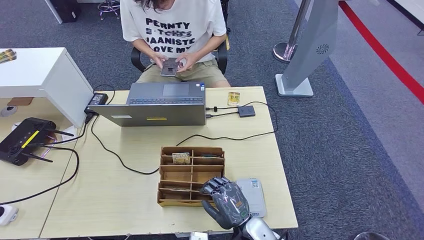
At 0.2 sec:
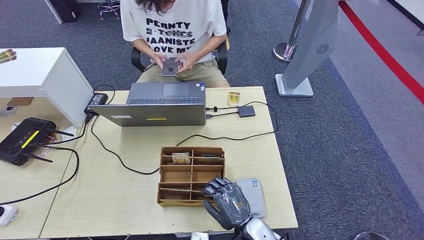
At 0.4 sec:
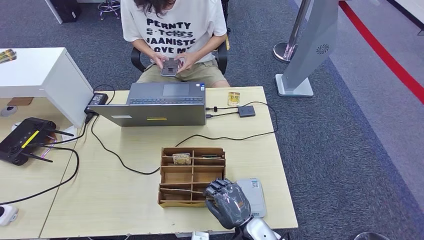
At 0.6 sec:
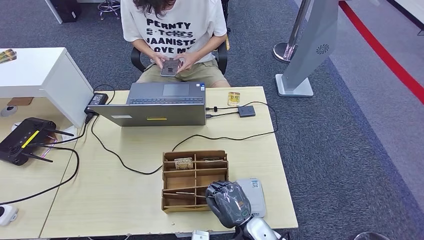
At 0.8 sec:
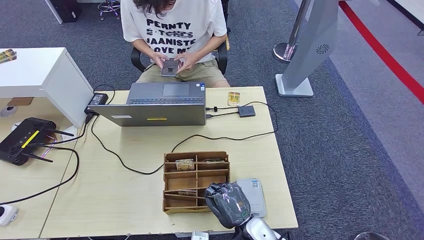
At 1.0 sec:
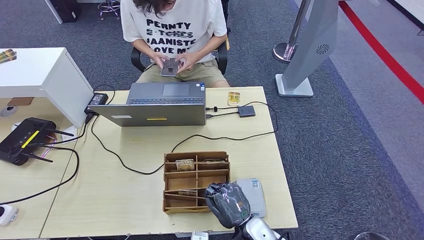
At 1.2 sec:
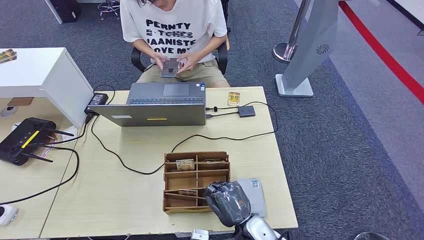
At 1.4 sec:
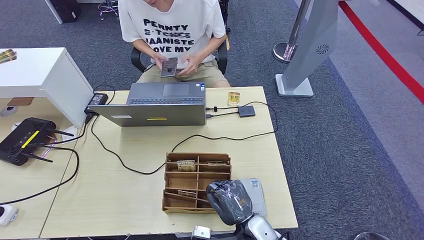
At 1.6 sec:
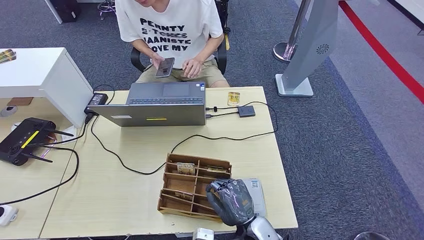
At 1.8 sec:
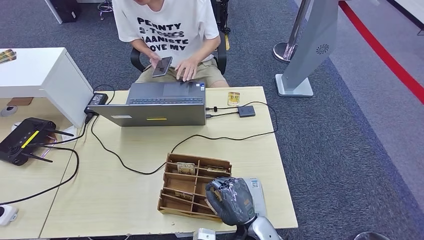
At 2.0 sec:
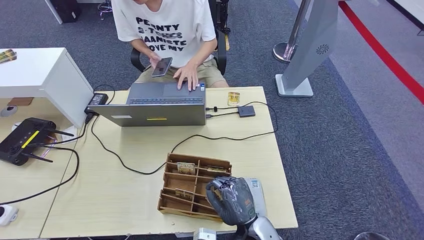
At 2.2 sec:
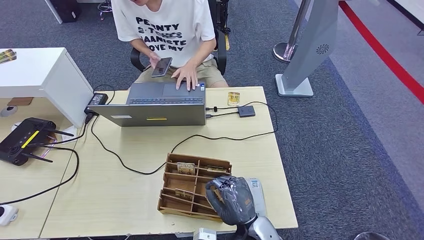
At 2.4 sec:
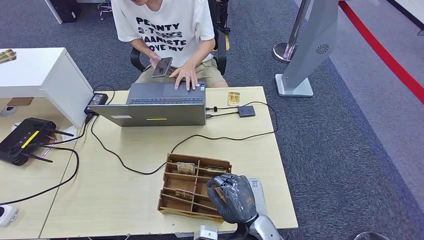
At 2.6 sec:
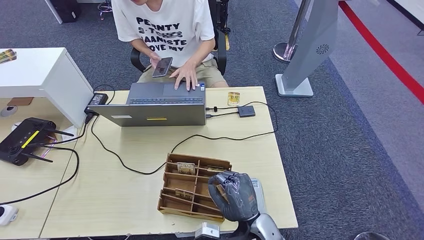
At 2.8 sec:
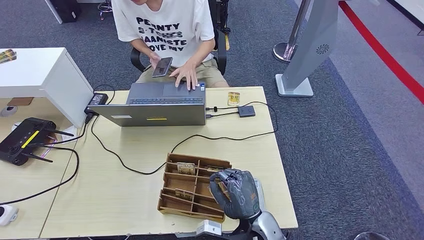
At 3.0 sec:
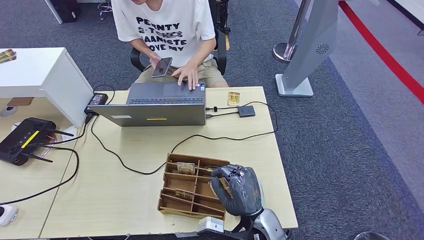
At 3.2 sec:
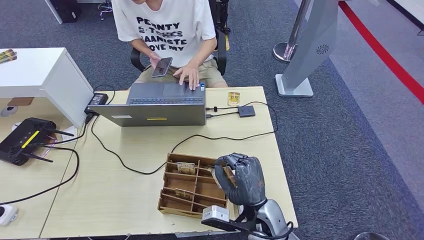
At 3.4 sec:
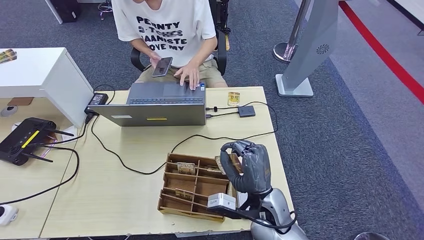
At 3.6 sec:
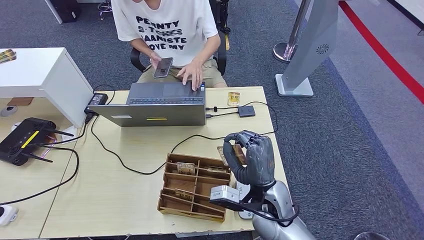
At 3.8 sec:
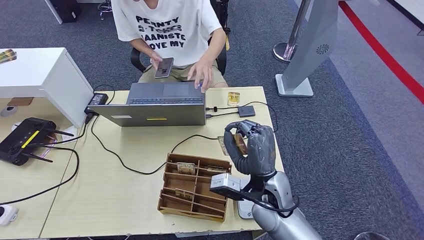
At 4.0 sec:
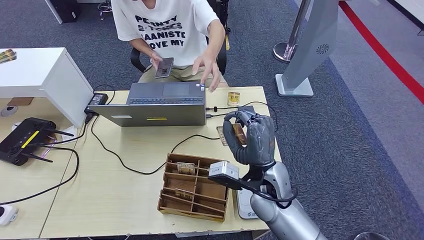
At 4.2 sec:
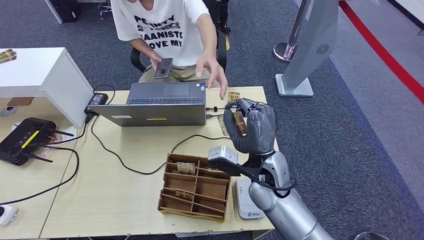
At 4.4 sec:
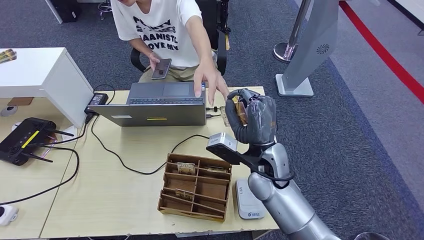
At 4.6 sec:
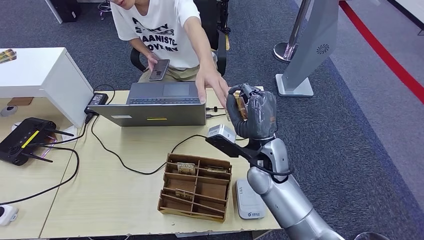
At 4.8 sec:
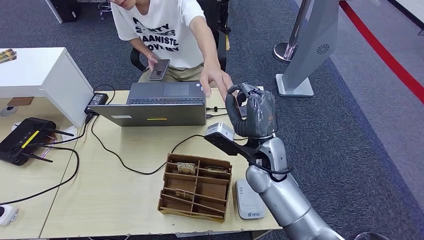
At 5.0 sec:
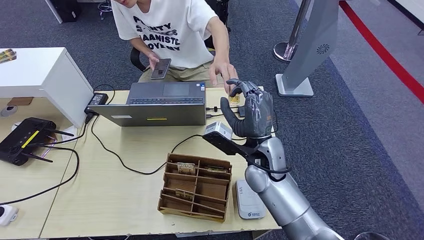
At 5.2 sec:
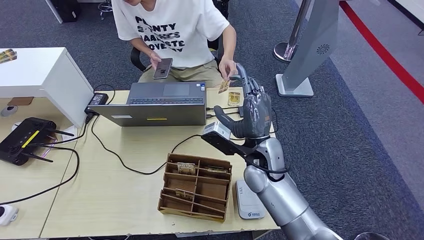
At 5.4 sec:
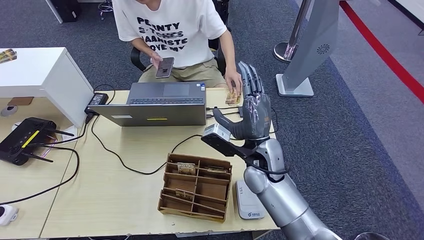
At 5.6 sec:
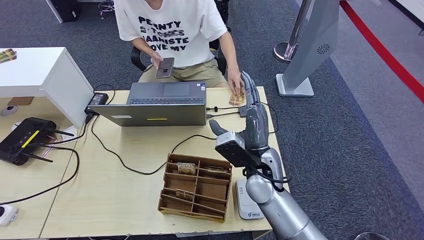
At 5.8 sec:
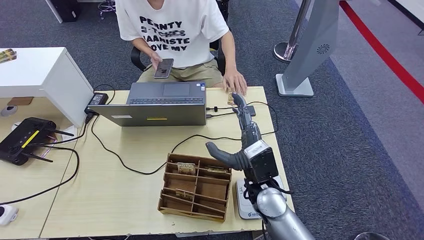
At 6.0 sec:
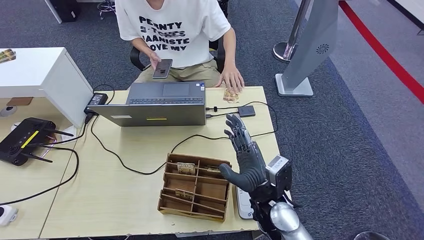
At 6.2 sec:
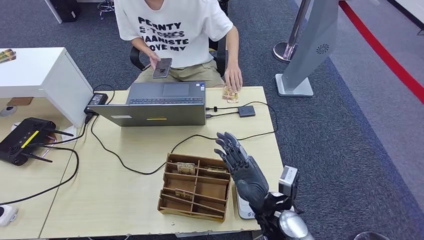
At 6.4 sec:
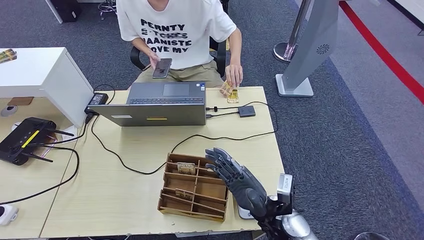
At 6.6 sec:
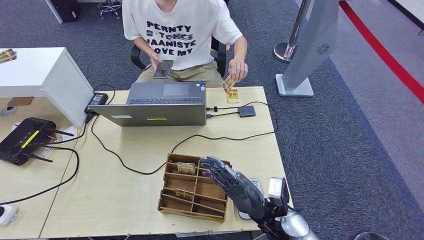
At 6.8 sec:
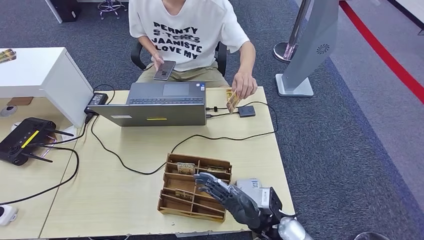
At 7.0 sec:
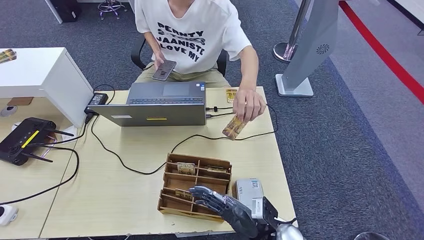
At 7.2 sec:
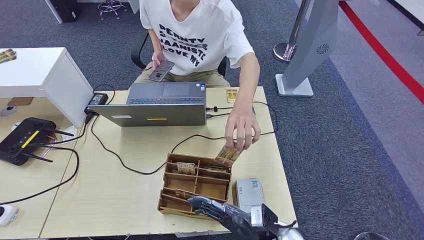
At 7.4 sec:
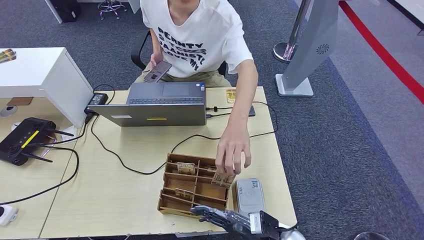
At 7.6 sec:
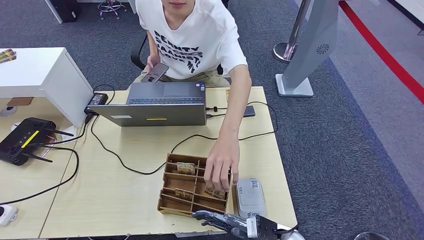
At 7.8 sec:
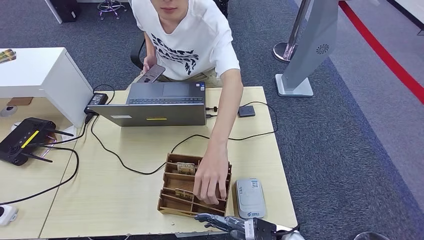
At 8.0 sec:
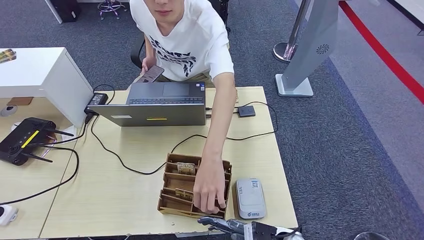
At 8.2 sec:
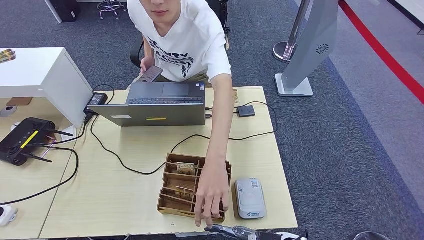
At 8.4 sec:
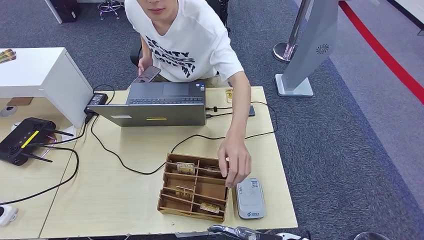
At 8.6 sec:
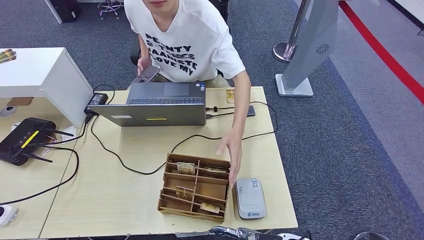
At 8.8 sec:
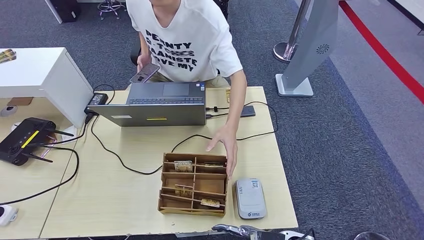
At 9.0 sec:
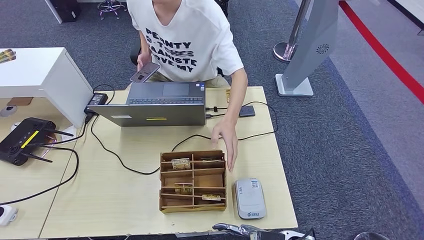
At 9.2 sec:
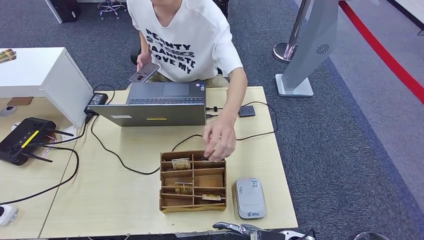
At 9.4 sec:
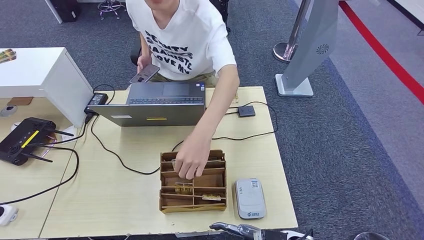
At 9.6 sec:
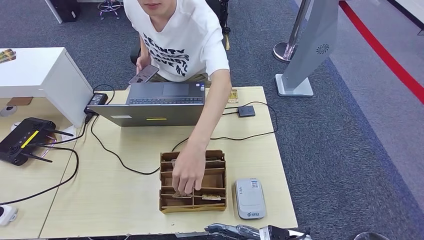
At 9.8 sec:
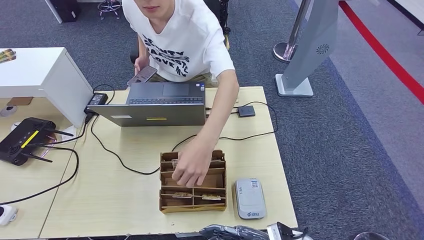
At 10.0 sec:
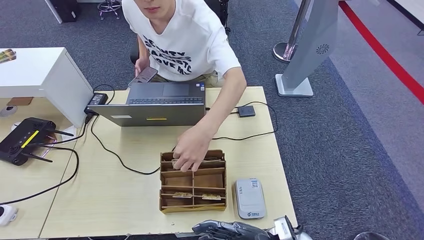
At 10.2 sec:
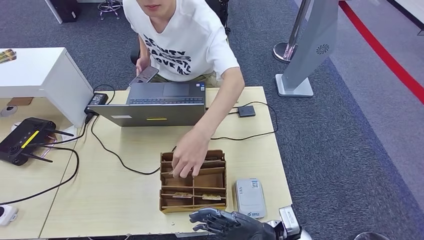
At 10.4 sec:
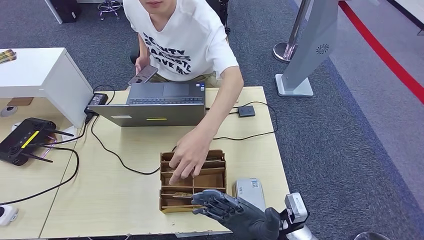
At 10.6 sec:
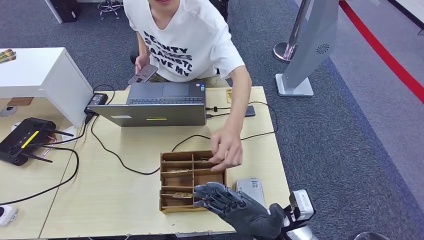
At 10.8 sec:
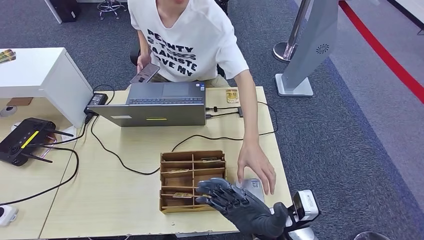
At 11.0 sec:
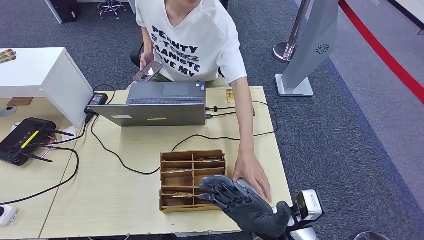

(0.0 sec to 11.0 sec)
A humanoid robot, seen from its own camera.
Step, 0.6 sec - 4.0 sec: Pick up the room key from the key card box.
0.0 sec - 1.6 sec: The hands stay close to where they were, moving slightly.
1.6 sec - 3.2 sec: The right hand travels upward by roughly 5 cm.
3.2 sec - 4.8 sec: The right hand heads forward and upward, covering some 15 cm.
4.8 sec - 6.2 sec: The right hand heads backward and downward, covering about 15 cm.
6.2 sec - 7.8 sec: The right hand is displaced downward by about 10 cm.
7.8 sec - 9.4 sec: There are only small adjustments of the hands.
9.4 sec - 11.0 sec: The right hand is displaced upward and to the left by some 15 cm.

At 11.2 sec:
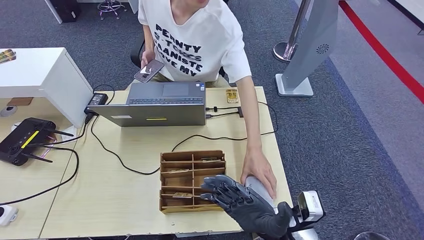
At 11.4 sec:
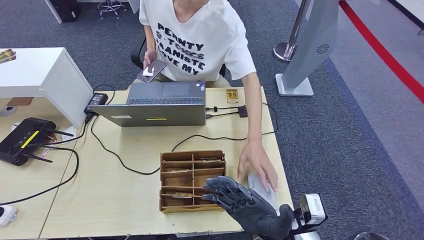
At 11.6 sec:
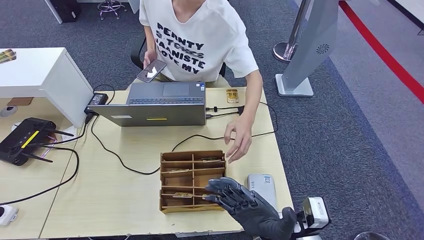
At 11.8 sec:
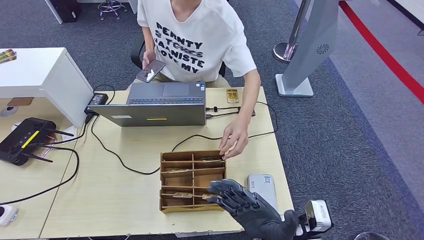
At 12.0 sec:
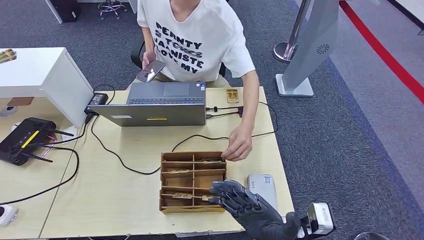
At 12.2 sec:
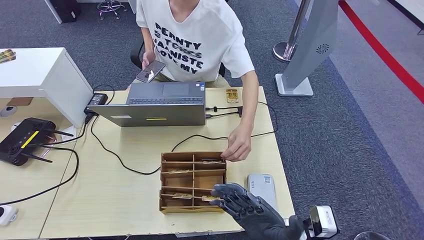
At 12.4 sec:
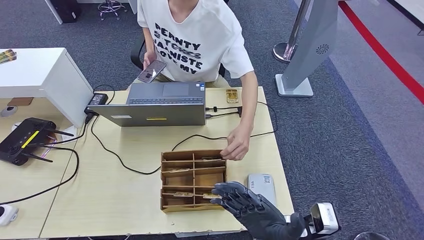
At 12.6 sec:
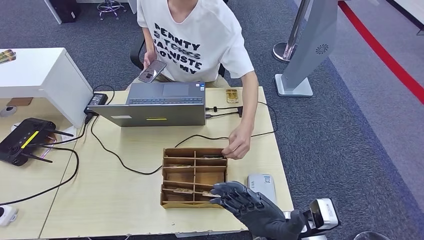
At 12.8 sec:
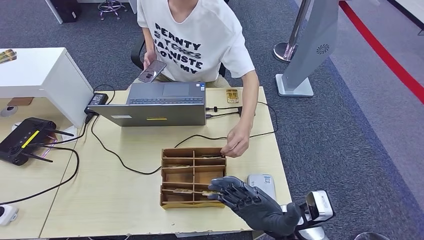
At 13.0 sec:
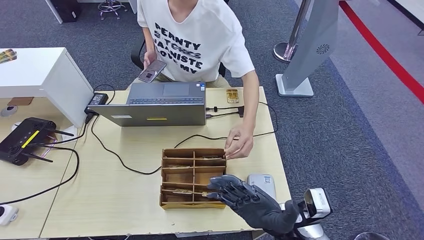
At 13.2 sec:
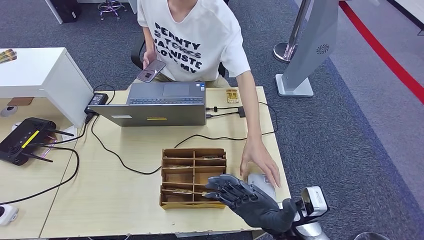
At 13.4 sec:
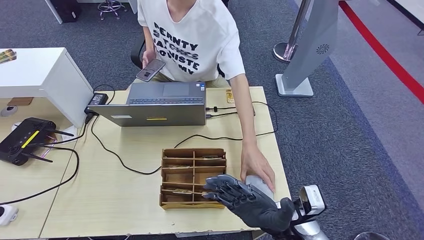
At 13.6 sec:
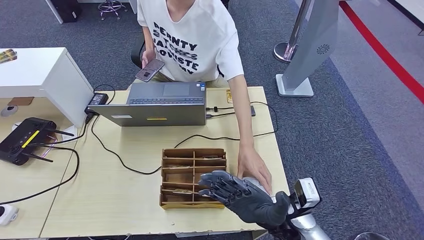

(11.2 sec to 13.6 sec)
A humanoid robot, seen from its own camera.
Step, 11.2 sec - 13.6 sec: Hand the room key to the person.
11.2 sec - 12.4 sec: The left hand is displaced to the left by approximately 5 cm.
